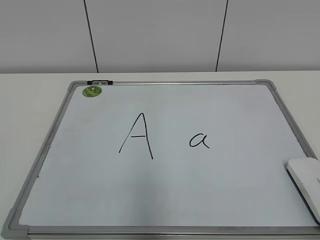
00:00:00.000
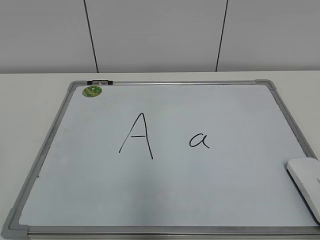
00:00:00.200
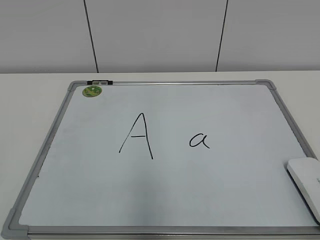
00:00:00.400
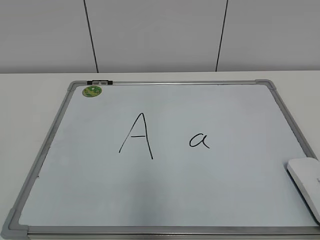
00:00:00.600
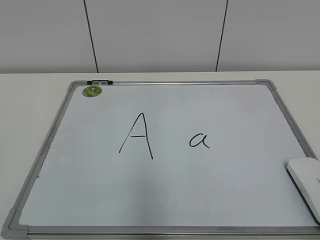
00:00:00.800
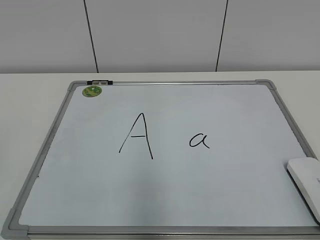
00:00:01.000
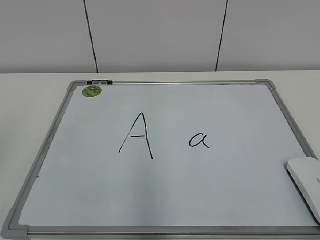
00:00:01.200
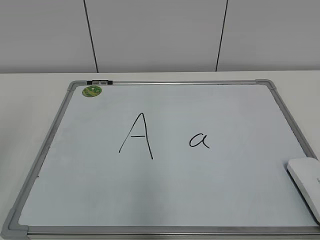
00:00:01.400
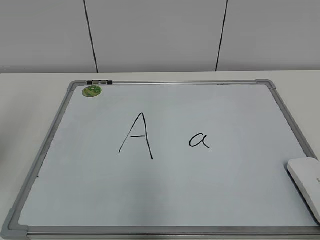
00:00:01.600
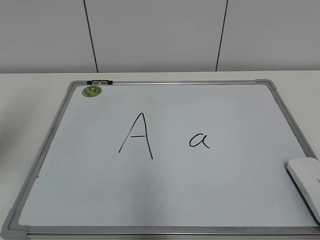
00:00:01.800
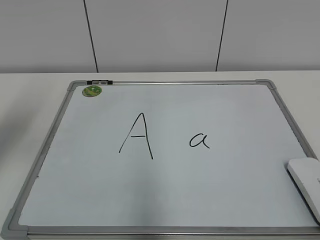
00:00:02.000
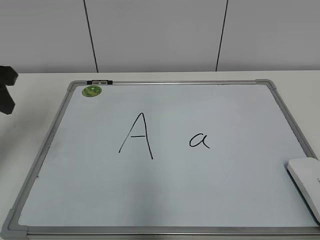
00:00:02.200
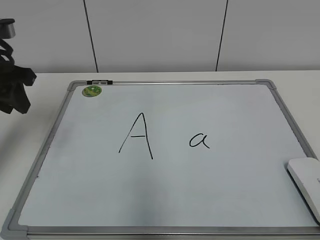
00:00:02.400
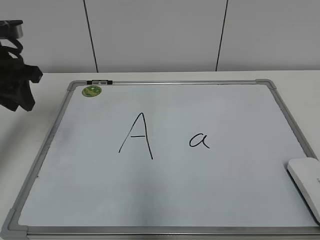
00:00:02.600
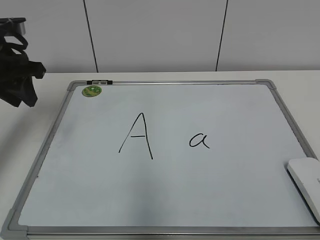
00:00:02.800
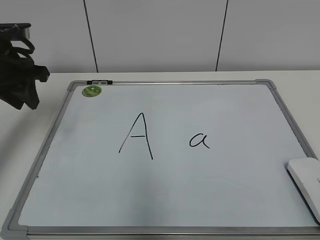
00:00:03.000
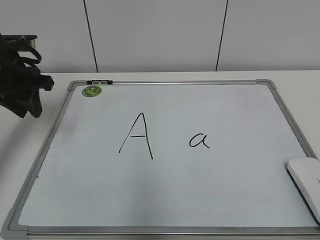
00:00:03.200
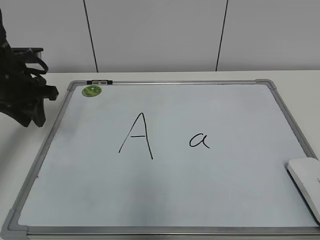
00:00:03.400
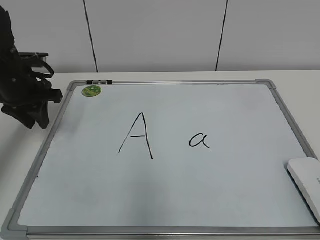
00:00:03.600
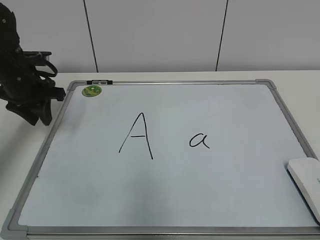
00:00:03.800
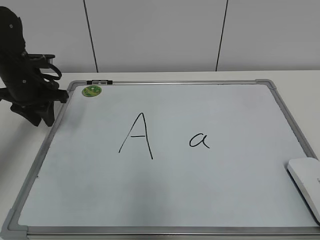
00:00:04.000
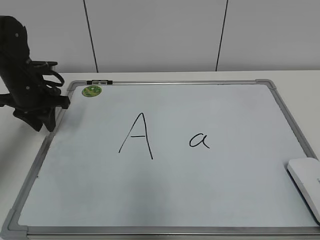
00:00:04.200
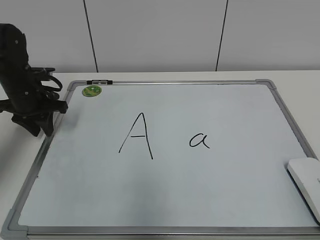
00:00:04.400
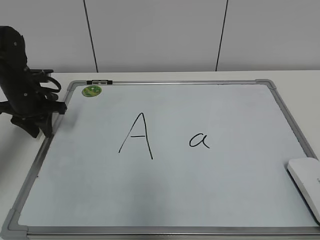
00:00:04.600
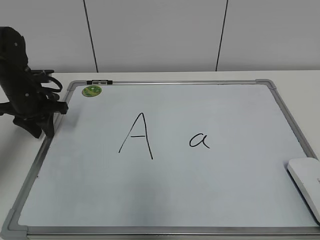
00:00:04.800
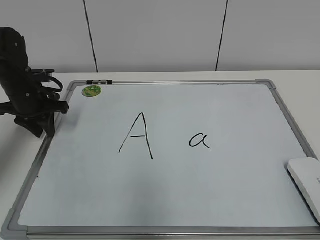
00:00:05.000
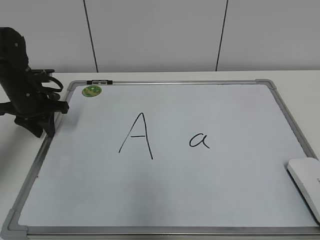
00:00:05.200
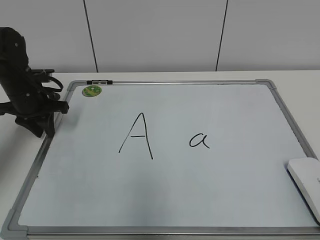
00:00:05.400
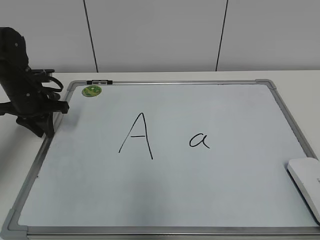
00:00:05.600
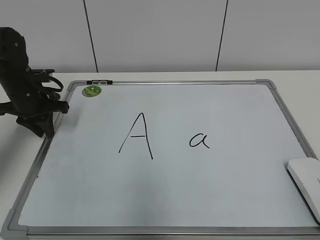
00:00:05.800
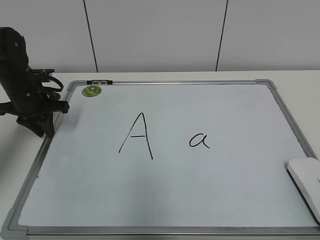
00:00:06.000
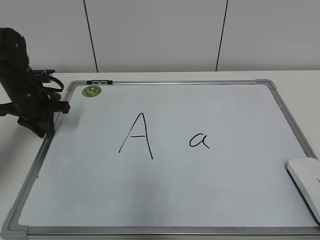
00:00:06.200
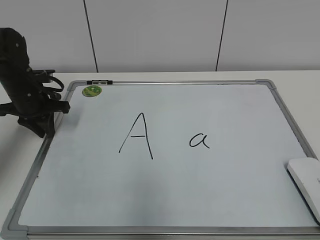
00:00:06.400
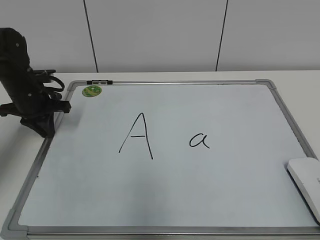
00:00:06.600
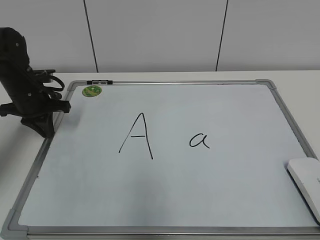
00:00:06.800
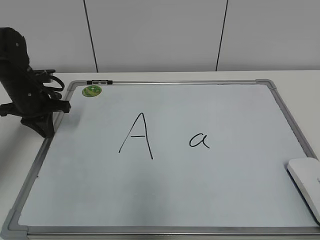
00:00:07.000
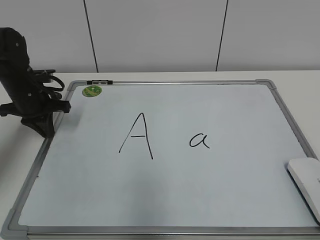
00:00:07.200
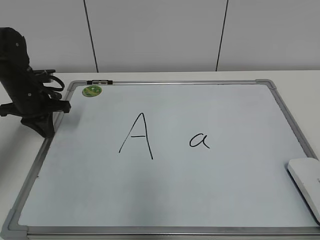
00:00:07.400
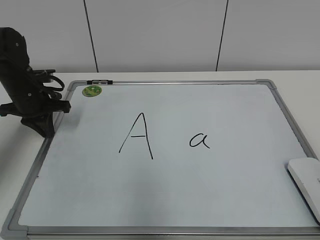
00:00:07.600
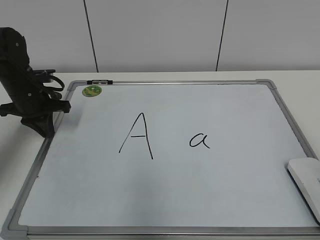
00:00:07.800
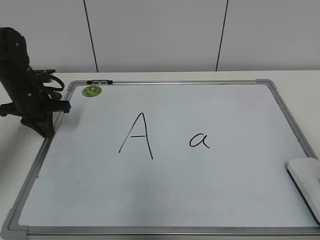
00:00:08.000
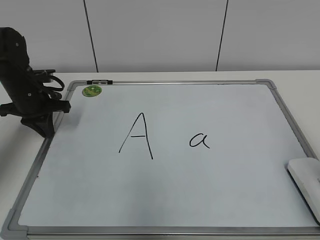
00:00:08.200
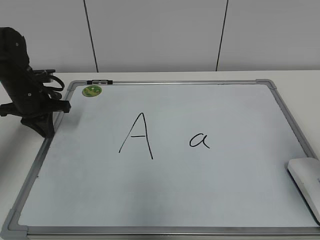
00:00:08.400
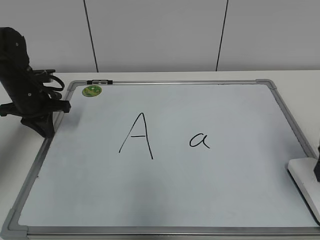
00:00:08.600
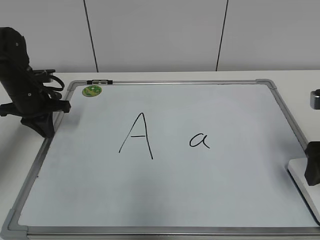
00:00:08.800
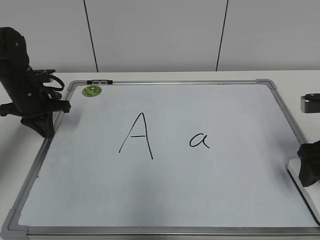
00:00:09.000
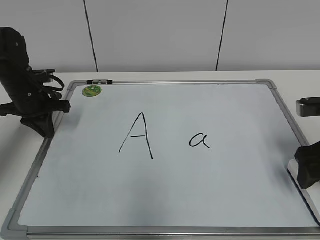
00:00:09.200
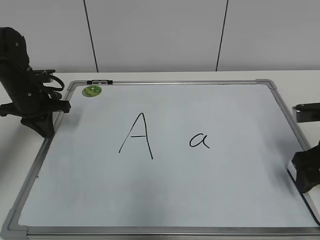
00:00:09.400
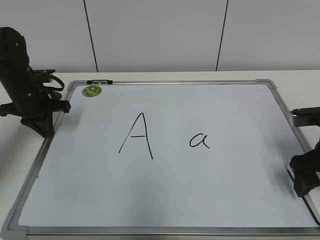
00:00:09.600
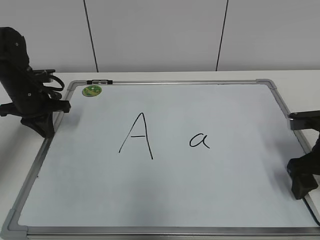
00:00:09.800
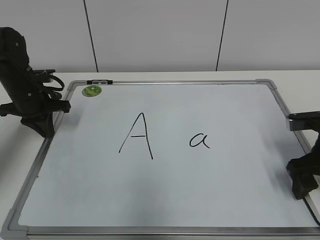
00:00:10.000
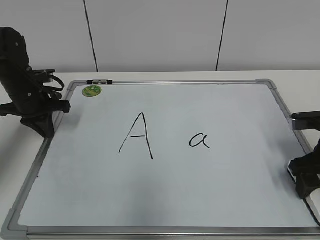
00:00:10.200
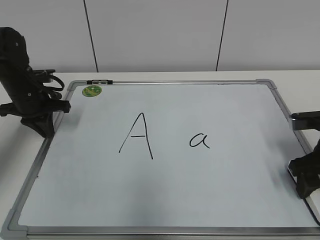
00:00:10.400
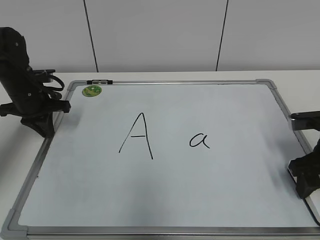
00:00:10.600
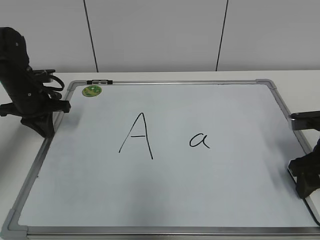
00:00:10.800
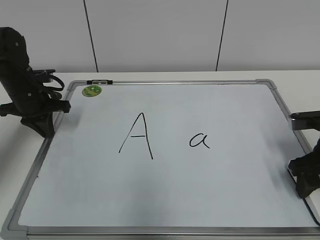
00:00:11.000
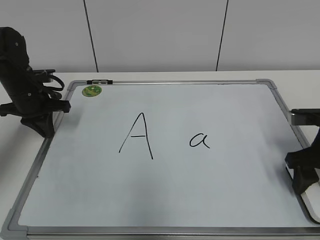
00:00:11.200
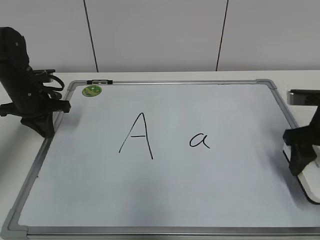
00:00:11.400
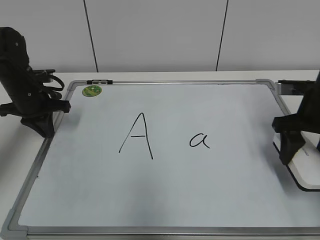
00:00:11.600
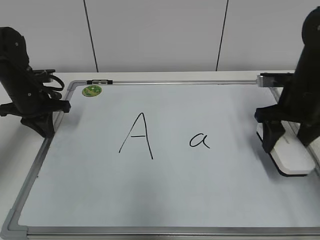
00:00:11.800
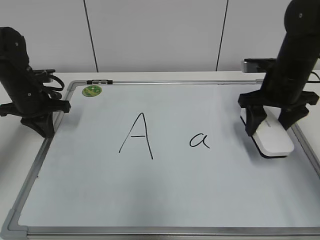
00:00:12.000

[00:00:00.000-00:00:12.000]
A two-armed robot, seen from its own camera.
Task of the whole recording: pick up the eraser on the blackboard and erase the letter "a".
Step, 00:00:00.000 to 00:00:06.600: Hold the drawing board steady with your left hand.
Step, 00:00:06.800 to 00:00:10.800: Grab the eraser with your right hand.
00:00:01.600 to 00:00:03.000: The left gripper goes some 20 cm forward and downward.
00:00:03.000 to 00:00:04.400: The left gripper moves downward and forward, approximately 10 cm.
00:00:04.400 to 00:00:06.000: Both grippers stay put.
00:00:07.600 to 00:00:09.000: The right gripper goes some 20 cm forward and downward, and opens.
00:00:09.000 to 00:00:10.400: The right gripper changes place by about 5 cm, and closes up.
00:00:10.400 to 00:00:12.000: The right gripper is displaced forward, to the left and upward by about 10 cm.

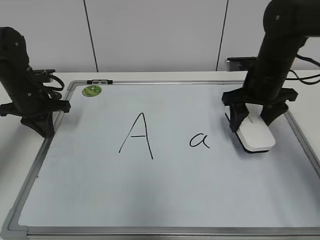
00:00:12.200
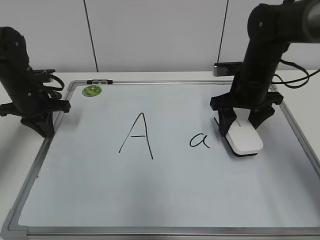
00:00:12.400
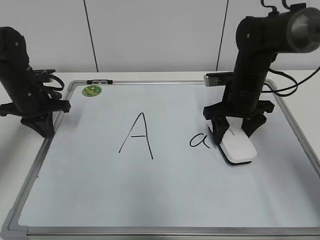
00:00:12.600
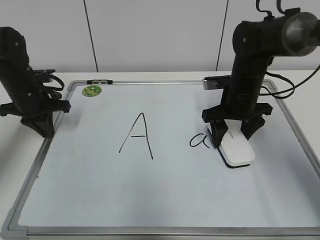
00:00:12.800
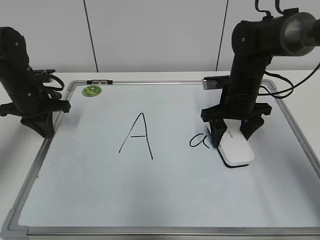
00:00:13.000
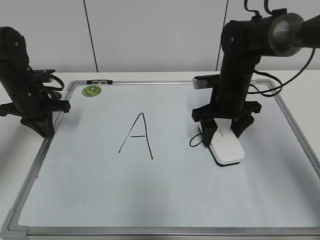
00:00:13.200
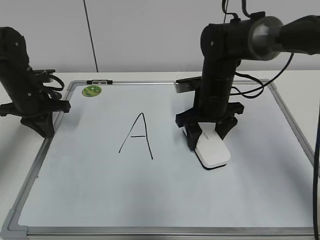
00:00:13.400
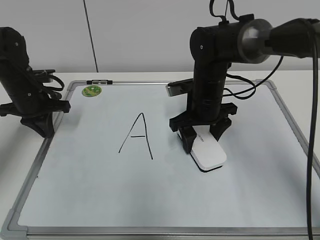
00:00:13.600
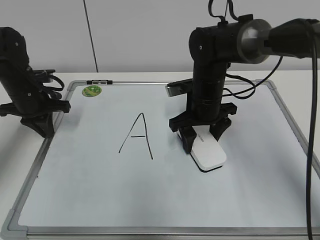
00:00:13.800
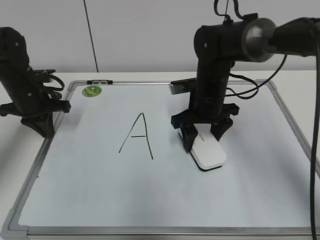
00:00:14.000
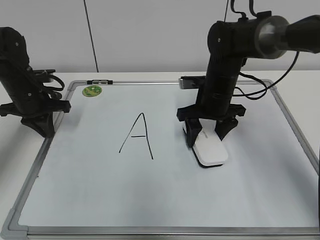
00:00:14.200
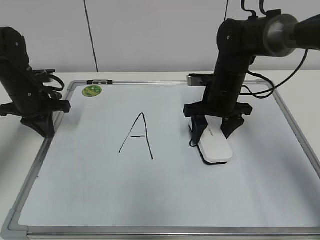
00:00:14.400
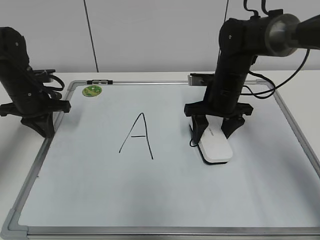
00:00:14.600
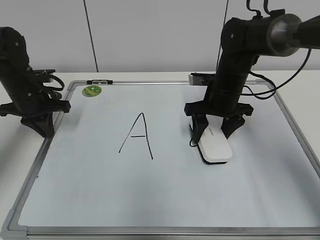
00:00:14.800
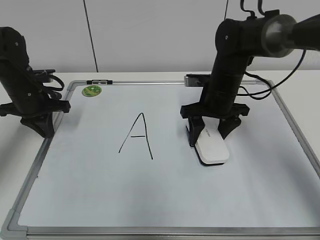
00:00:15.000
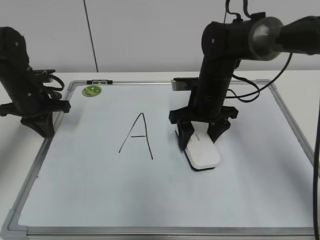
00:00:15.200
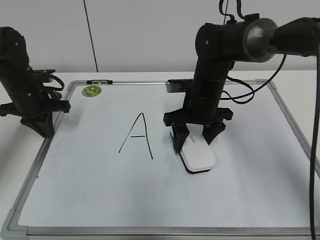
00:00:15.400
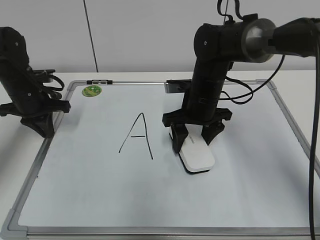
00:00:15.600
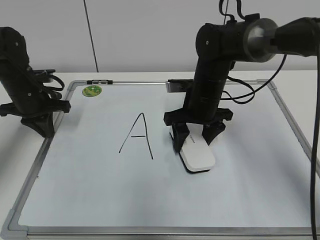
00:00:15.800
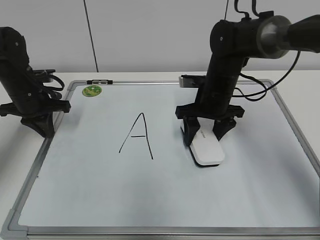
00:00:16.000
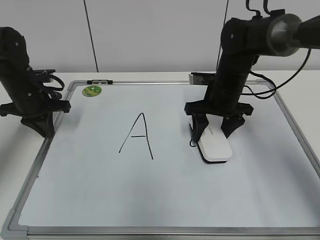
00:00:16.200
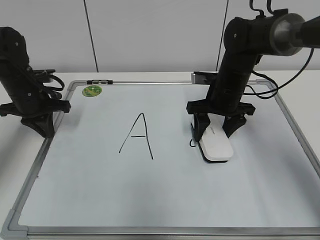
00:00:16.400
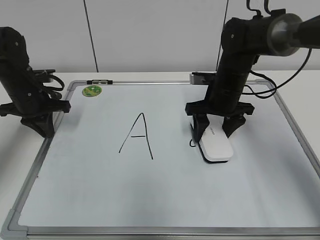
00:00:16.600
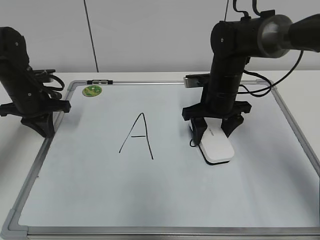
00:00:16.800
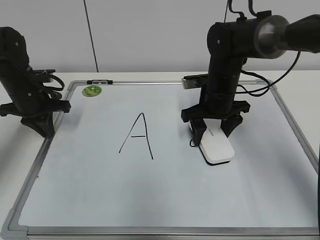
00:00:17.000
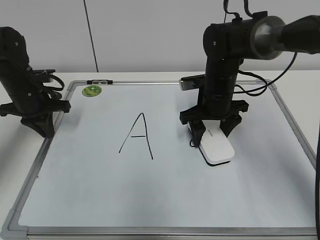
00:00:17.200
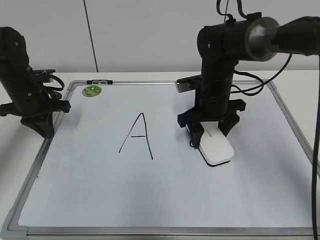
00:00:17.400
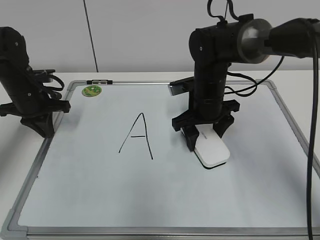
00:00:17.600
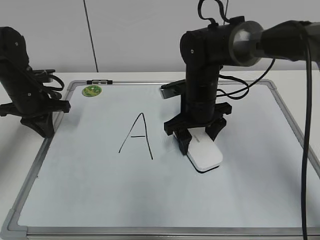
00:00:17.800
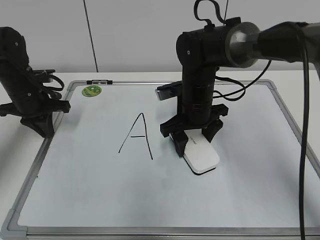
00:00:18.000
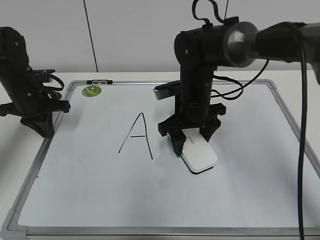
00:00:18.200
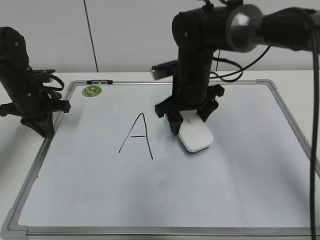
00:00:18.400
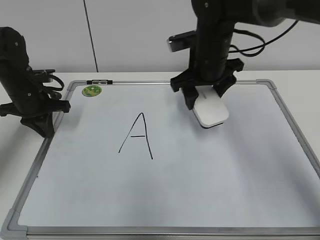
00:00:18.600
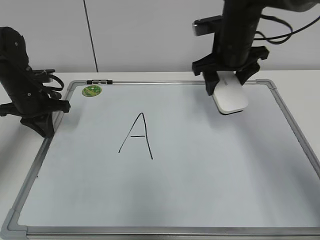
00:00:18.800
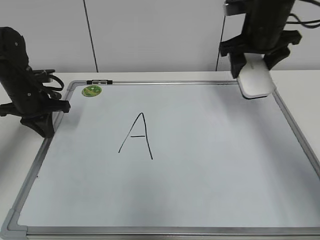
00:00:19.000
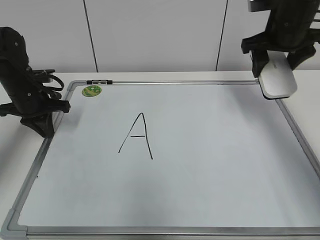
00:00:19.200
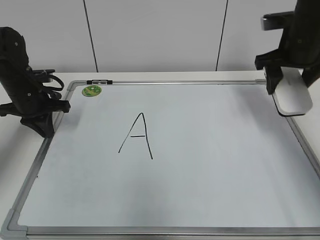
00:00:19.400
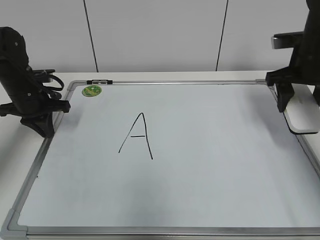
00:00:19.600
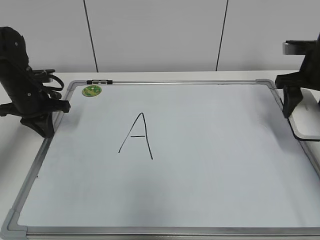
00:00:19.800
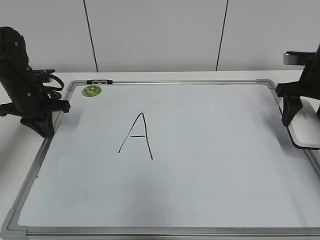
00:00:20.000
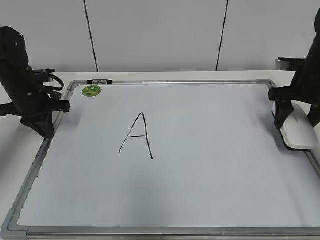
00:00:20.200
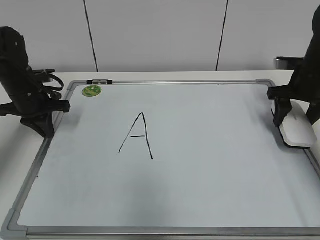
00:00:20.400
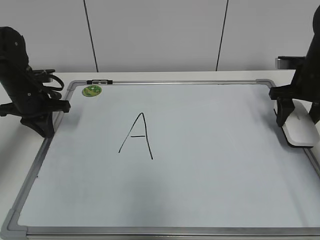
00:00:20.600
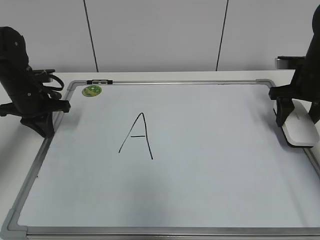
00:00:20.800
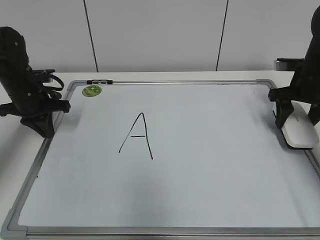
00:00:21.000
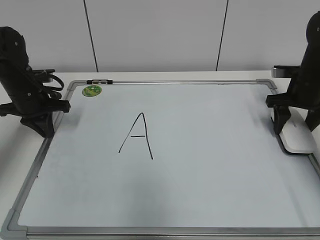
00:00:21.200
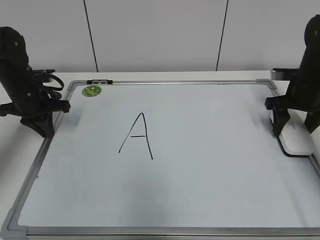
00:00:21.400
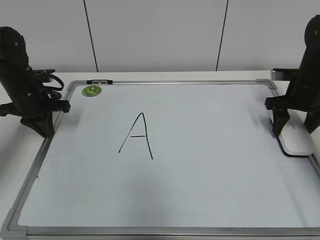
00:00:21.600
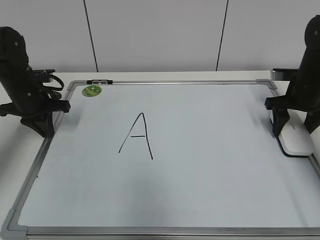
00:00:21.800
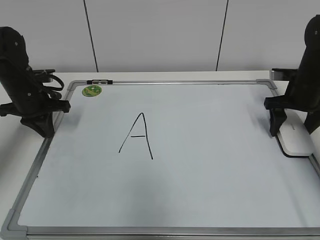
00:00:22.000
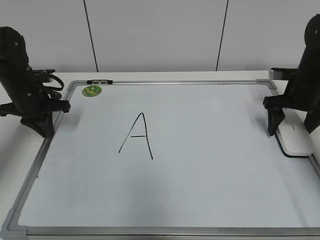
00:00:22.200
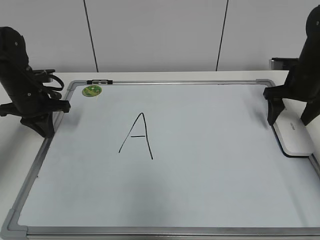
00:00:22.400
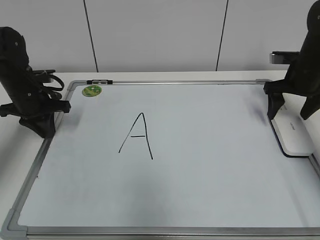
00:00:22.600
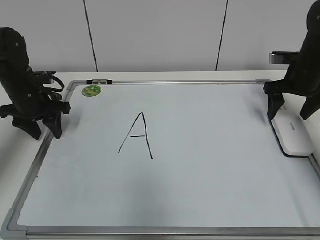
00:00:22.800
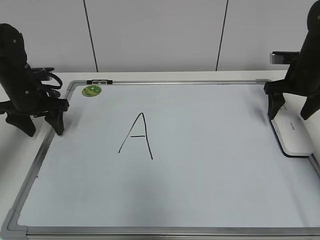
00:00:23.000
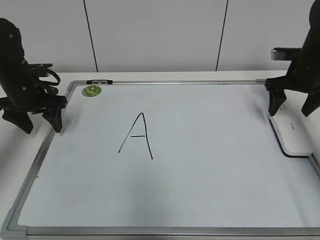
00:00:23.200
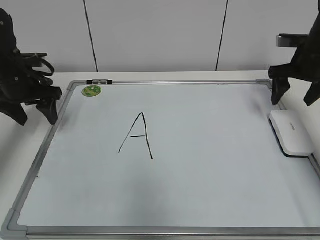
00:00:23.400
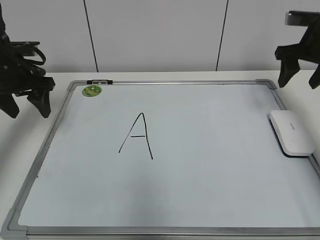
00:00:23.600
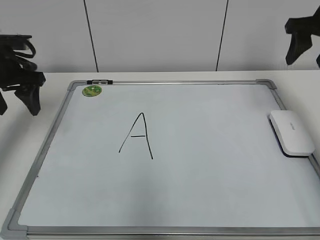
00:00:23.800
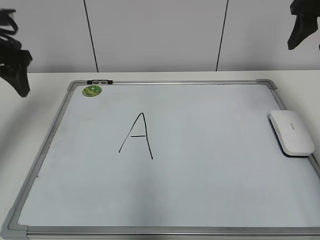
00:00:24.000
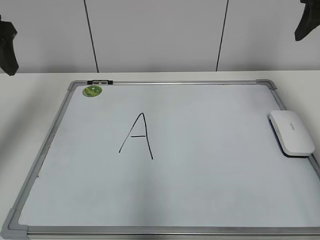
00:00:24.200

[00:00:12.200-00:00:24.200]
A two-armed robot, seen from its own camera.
Task of the whole recording: pick up the eraser on the blackboard and erase the letter "a".
Step, 00:00:12.200 to 00:00:17.800: Erase the letter a with your right hand.
Step, 00:00:18.000 to 00:00:21.800: Put down the eraser with your right hand.
00:00:12.200 to 00:00:13.800: The right gripper travels to the left by roughly 10 cm.
00:00:13.800 to 00:00:16.600: The grippers make only small movements.
00:00:16.600 to 00:00:18.200: The right gripper goes approximately 5 cm to the left.
00:00:18.200 to 00:00:19.800: The right gripper heads to the right, covering approximately 20 cm.
00:00:19.800 to 00:00:21.200: The right gripper travels downward by roughly 5 cm.
00:00:21.200 to 00:00:22.600: The right gripper opens up.
00:00:22.600 to 00:00:24.200: The right gripper goes roughly 20 cm upward, and closes its fingers; the left gripper heads upward and backward, covering about 20 cm, and opens up.
